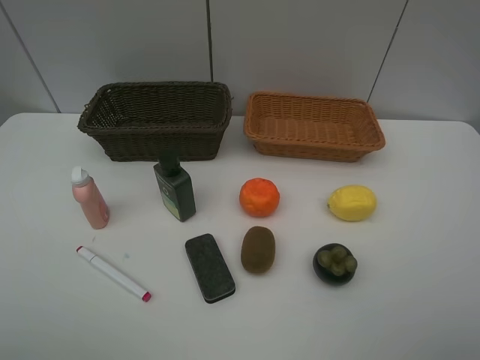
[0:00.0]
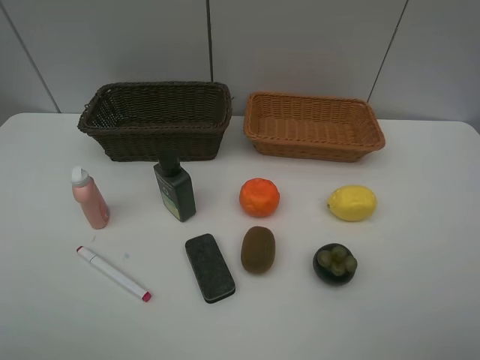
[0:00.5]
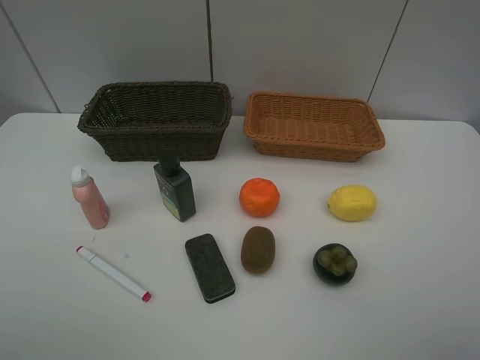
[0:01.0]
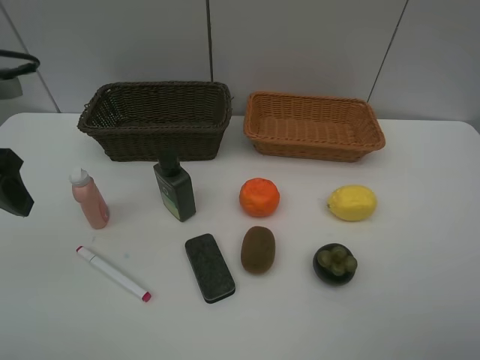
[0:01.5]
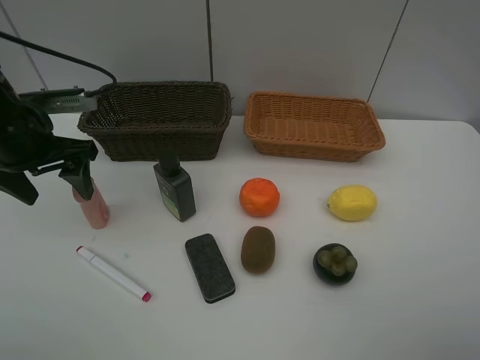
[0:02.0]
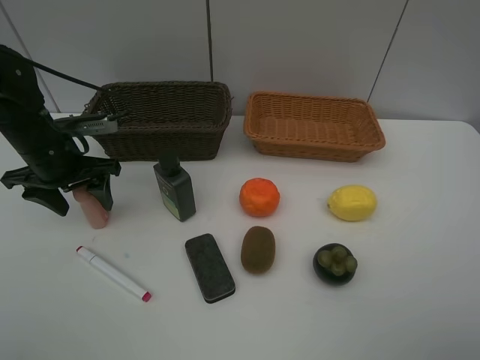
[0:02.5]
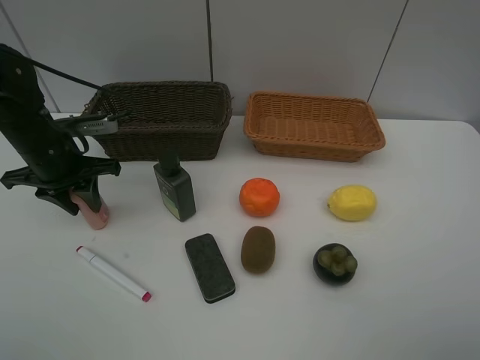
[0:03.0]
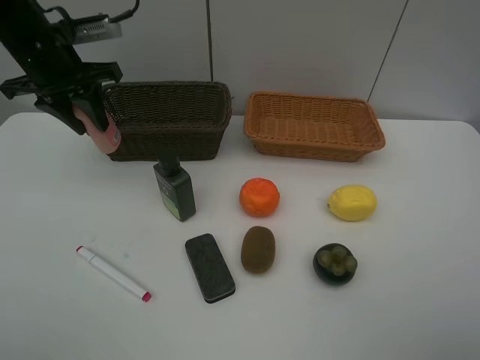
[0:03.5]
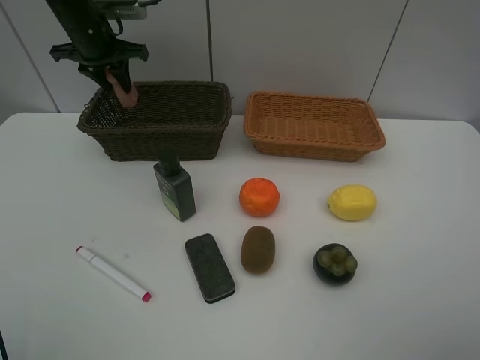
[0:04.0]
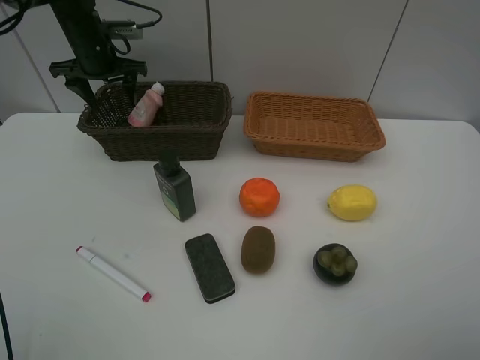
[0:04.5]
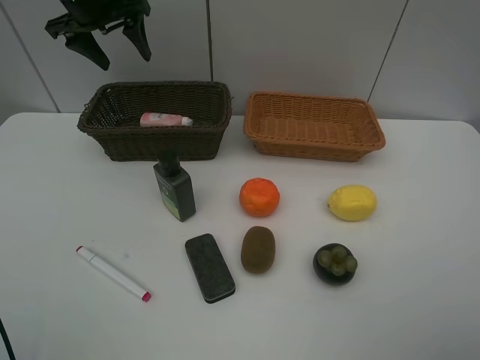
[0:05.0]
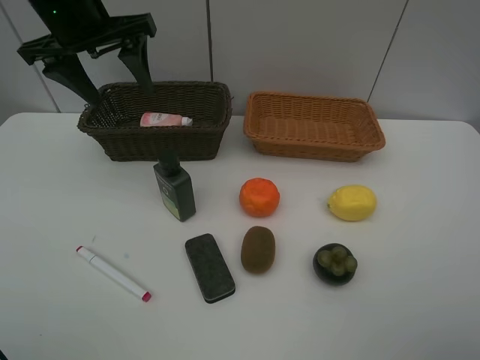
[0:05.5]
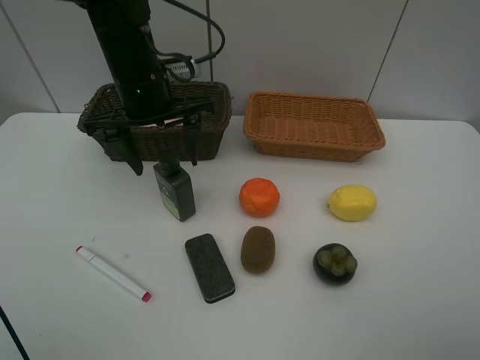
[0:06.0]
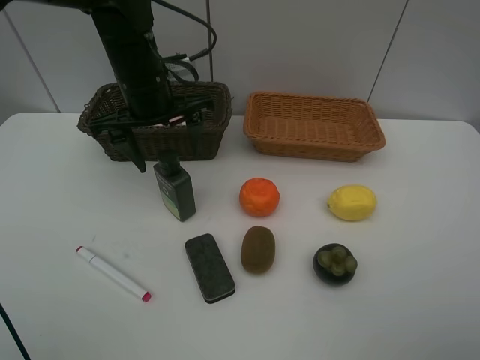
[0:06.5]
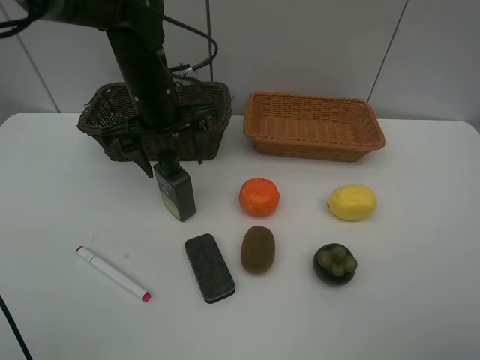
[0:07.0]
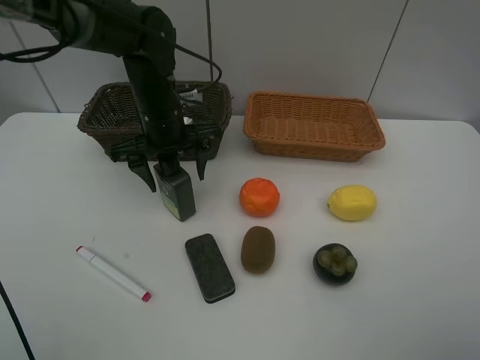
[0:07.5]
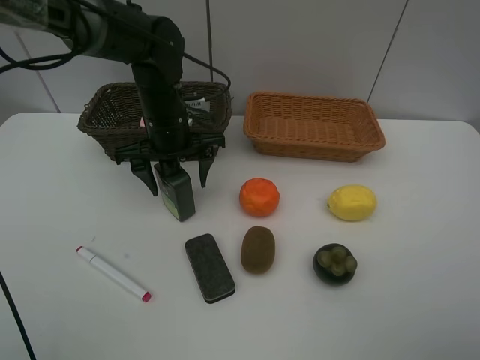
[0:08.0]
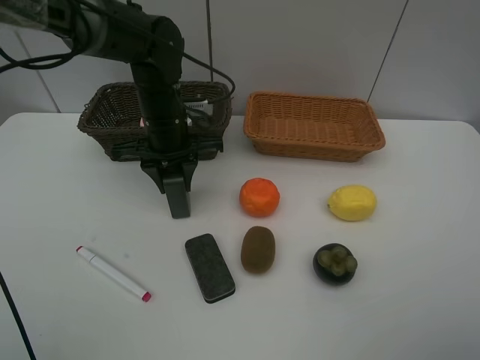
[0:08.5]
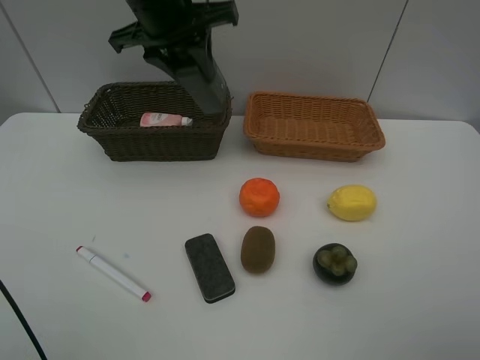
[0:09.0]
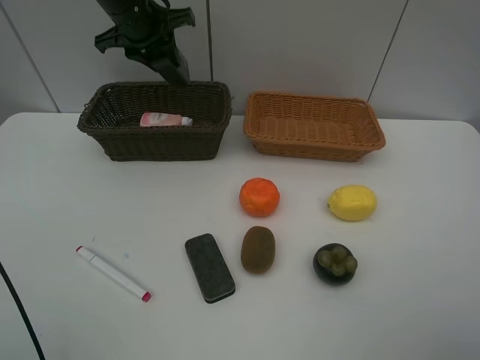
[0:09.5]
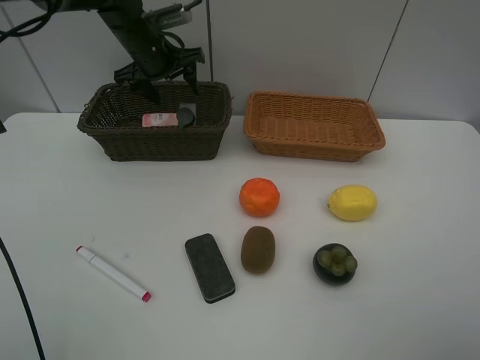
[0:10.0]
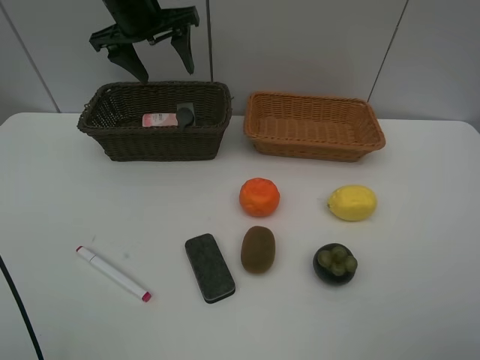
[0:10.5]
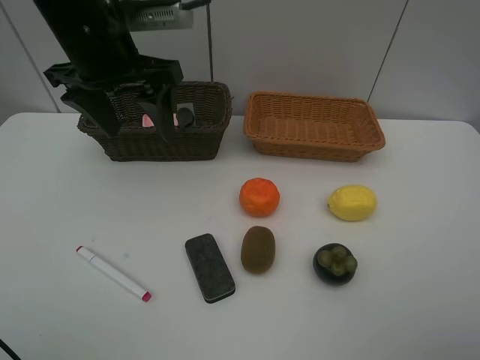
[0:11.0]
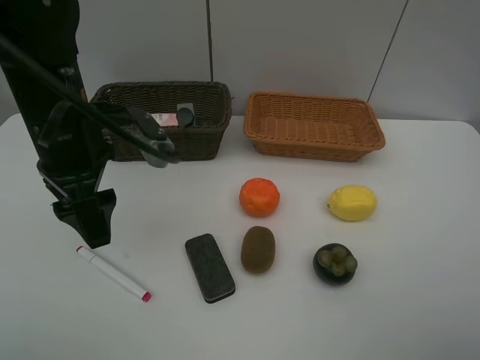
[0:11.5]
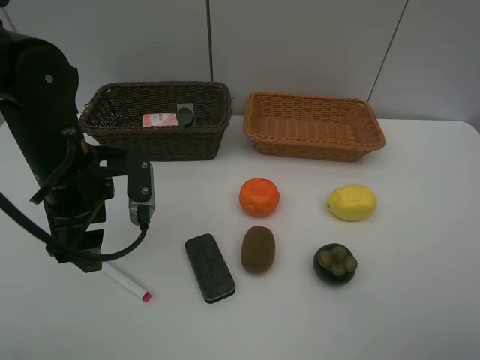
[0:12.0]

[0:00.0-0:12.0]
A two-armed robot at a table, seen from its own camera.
Task of the whole recording: Place multiple objects separately in different baskets.
Step, 0:00.0 to 0:03.0: Pick up the laundry detergent with left gripper.
Step, 0:03.5 to 0:04.5: Place the laundry detergent in the dark basket with left gripper.
Step, 0:05.0 to 0:08.5: Pick up the hard facial cleanser with left gripper.
Step, 0:09.0 to 0:10.0: Place the hard facial cleanser in the dark basket with left gripper.
0:00.0 to 0:02.0: The left gripper shifts some 30 cm forward.
0:02.0 to 0:04.0: The left gripper shifts approximately 20 cm forward, and closes up.
0:04.0 to 0:06.0: The left gripper travels backward and to the right by some 20 cm, and opens up.
0:06.0 to 0:08.0: The left gripper is displaced downward by approximately 5 cm.
0:08.0 to 0:10.0: The left gripper goes roughly 15 cm forward and to the left, moves roughly 20 cm upward and comes back, and closes and opens again.
0:10.0 to 0:12.0: The left gripper shifts approximately 25 cm backward.

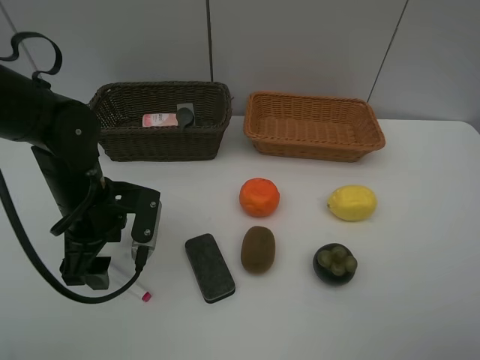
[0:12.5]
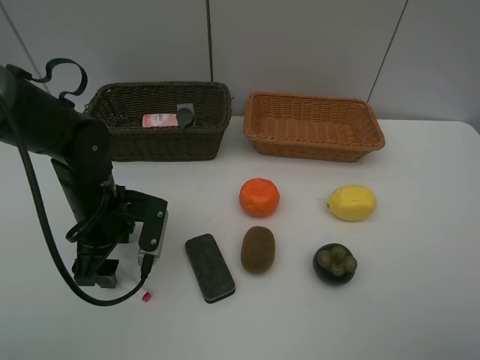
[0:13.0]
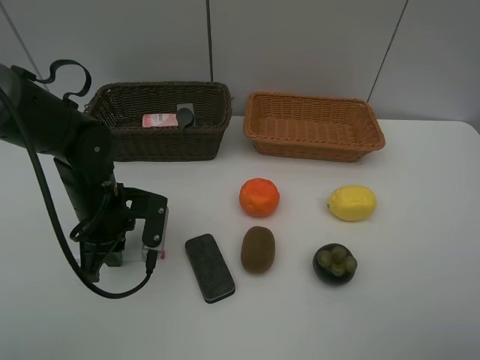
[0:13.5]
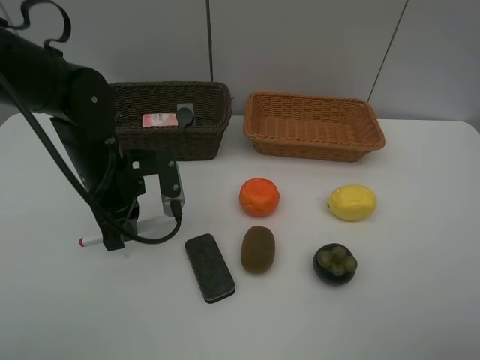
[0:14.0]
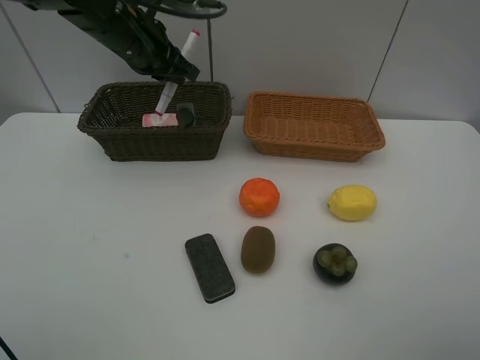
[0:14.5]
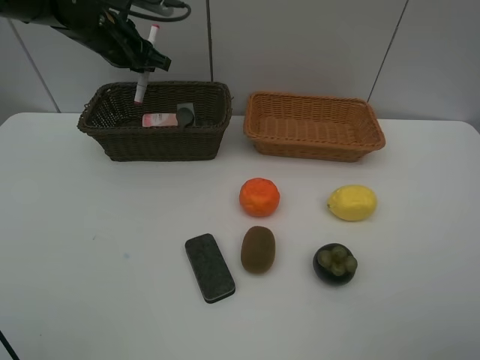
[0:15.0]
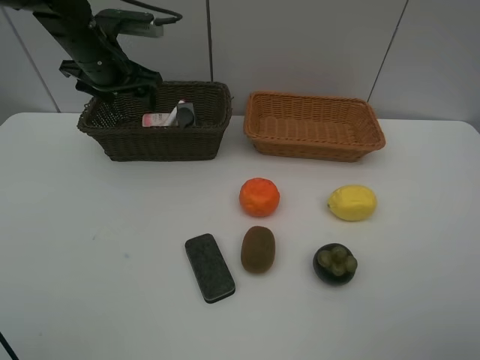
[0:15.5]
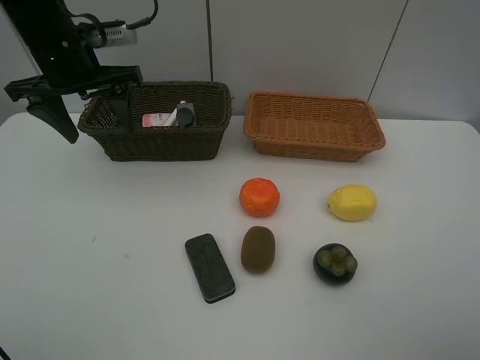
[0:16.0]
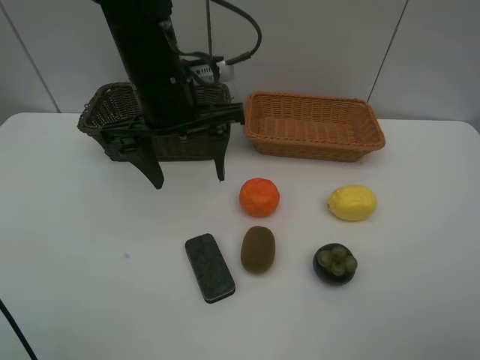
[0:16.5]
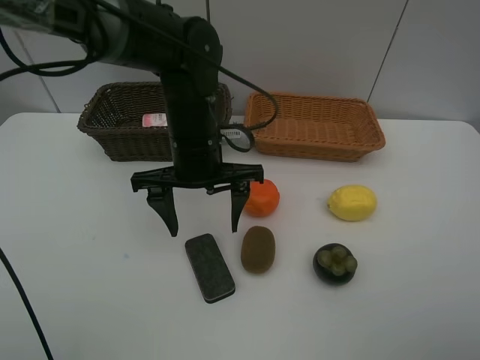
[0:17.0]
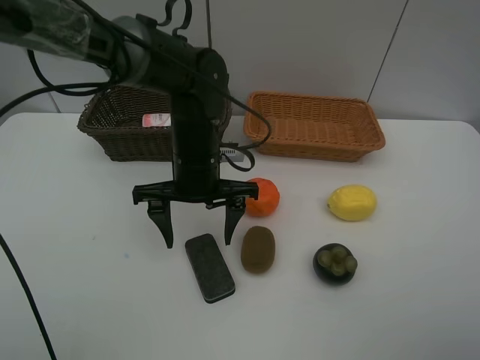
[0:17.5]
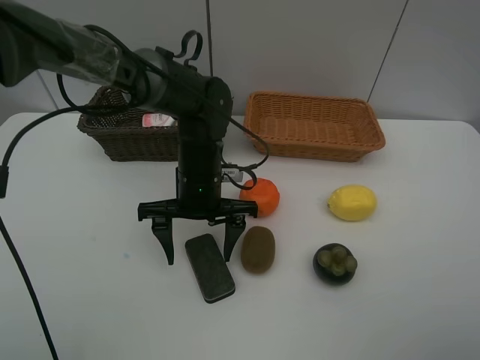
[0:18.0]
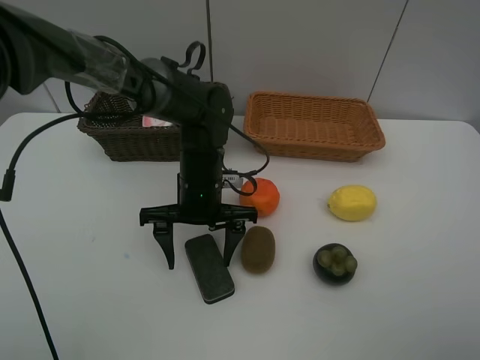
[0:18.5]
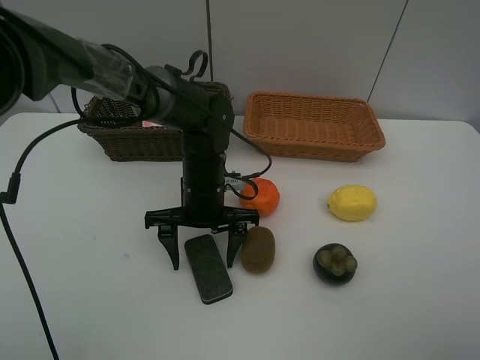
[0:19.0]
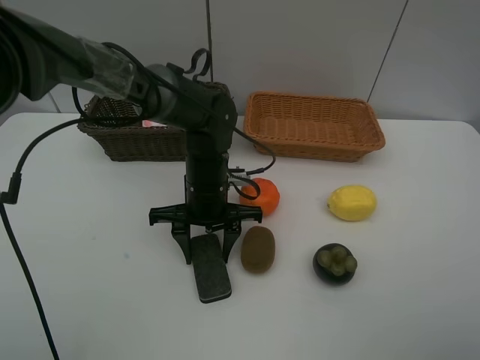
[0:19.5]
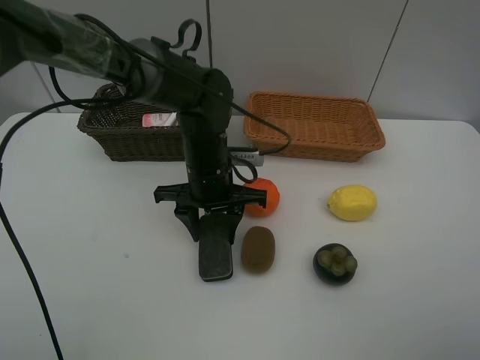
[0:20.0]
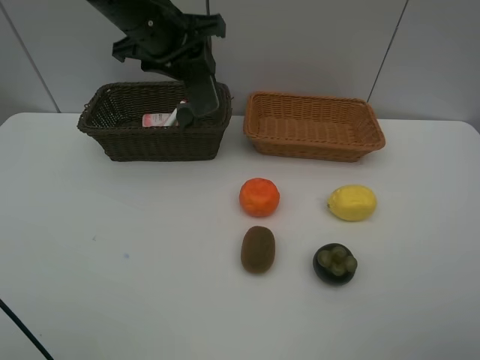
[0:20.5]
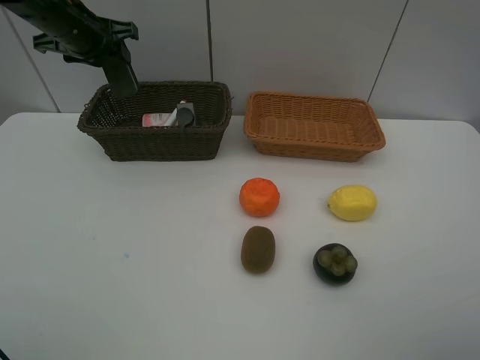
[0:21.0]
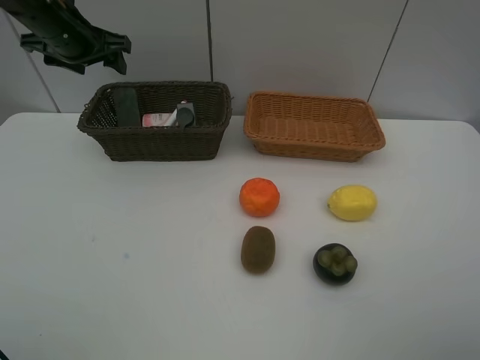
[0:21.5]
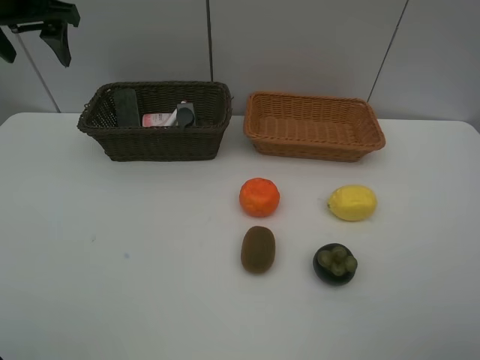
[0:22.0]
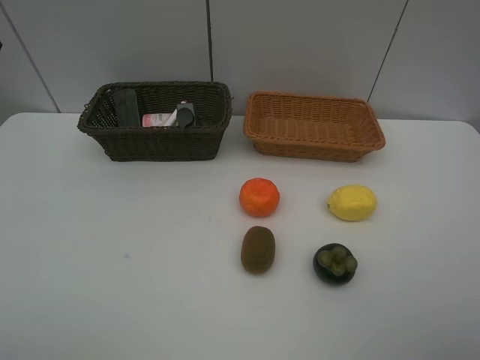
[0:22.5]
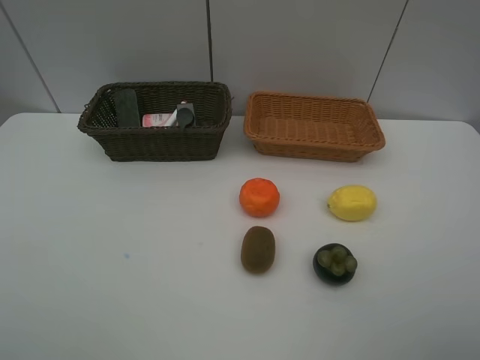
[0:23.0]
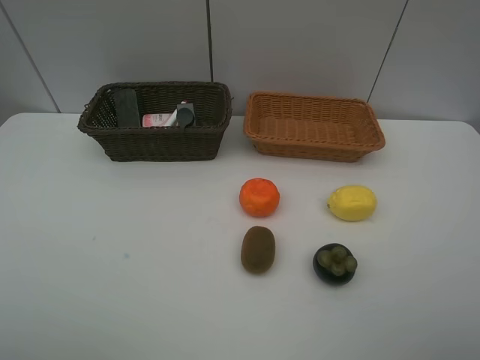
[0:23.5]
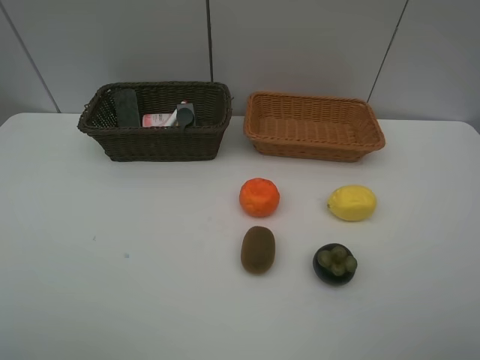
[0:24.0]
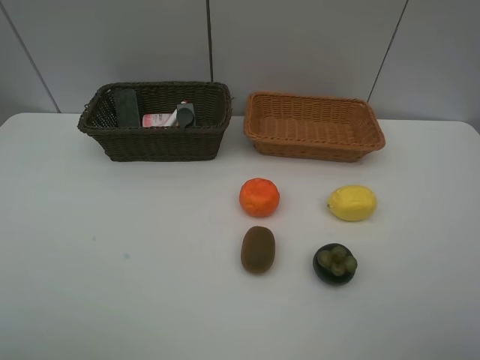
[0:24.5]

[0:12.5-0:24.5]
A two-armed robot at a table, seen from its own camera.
Task of the whole recording: Place multiple objects separately in different baskets.
Step, 0:14.0 to 0:15.5: Place the red marker in the dark basket with left gripper.
Step, 0:16.0 to 0:20.0: Pick up blackboard eraser with left gripper.
Step, 0:20.5 to 0:21.0: Place the blackboard eraser in the dark basket with left gripper.
0:12.5 to 0:14.5: The left gripper goes roughly 20 cm forward and upward, and closes up.
0:14.5 to 0:16.5: The left gripper heads backward and to the right, covering about 15 cm, and opens.
0:16.5 to 0:18.5: The left gripper goes roughly 15 cm downward.
0:18.5 to 0:20.5: The left gripper heads upward, forward and to the left, covering approximately 25 cm, and closes.
0:20.5 to 0:22.5: The left gripper goes about 25 cm to the left, backward and upward.

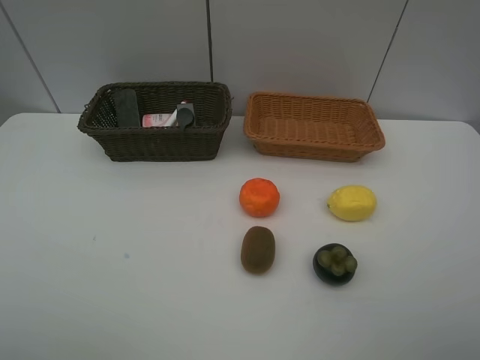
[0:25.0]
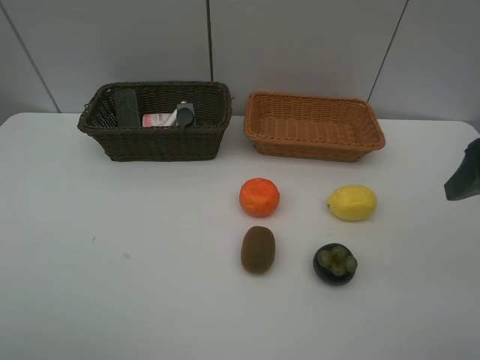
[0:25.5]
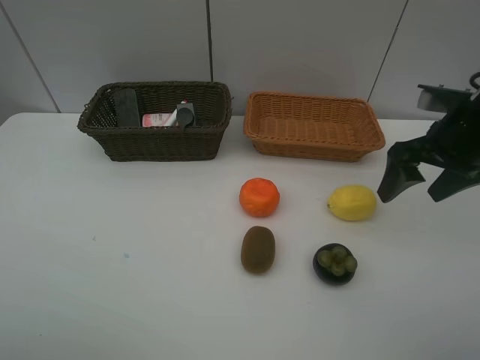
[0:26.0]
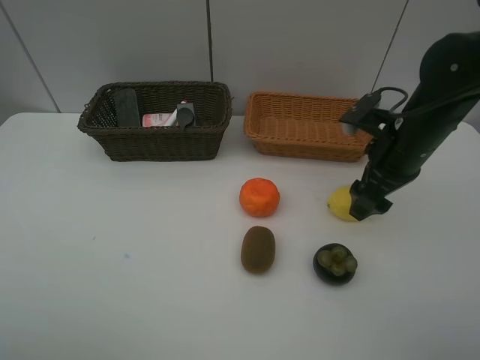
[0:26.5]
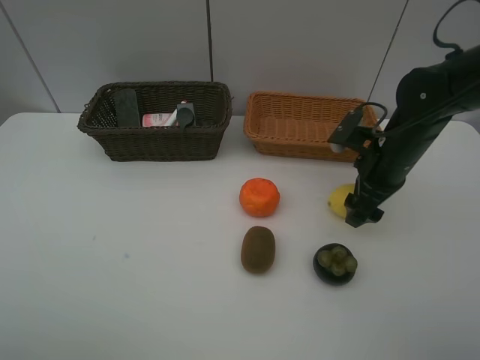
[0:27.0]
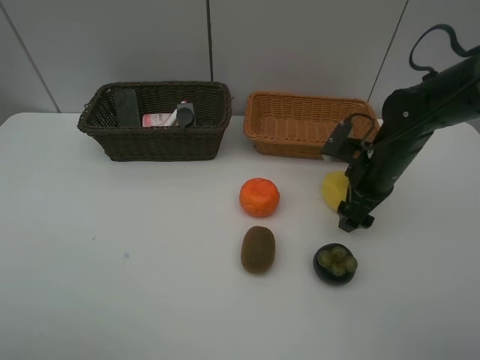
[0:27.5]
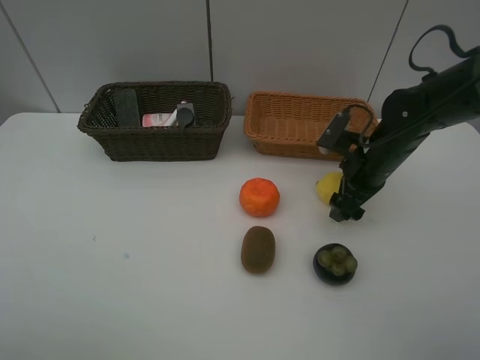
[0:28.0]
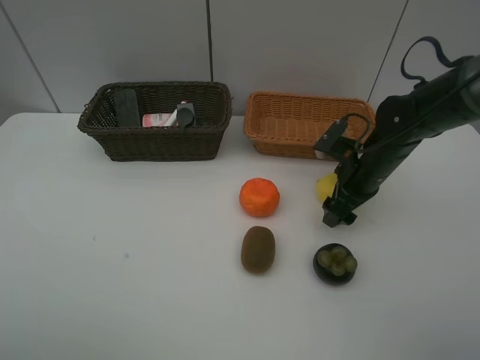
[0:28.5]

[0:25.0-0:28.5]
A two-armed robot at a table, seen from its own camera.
Task of the whole recording: Place multiple objects separately in different baskets.
0:25.0 to 0:27.0: The right gripper shifts some 30 cm forward and downward.
0:27.0 to 0:28.5: There are only small adjustments of the grippers.
